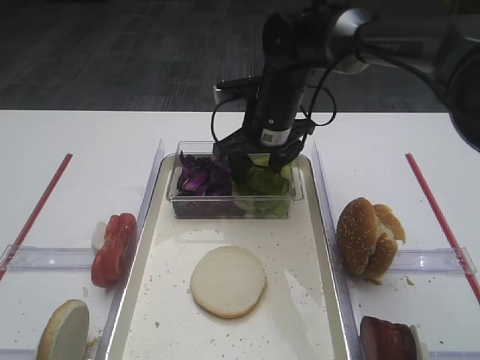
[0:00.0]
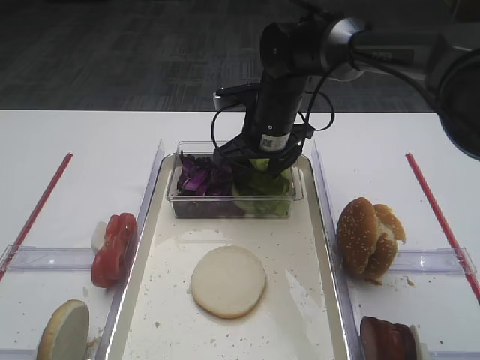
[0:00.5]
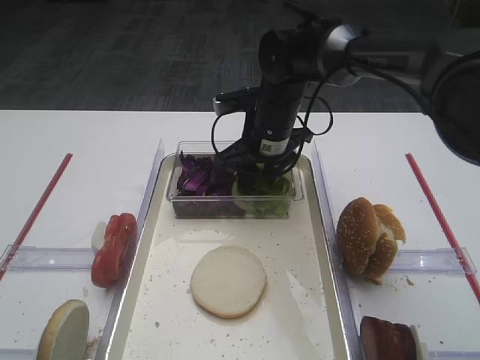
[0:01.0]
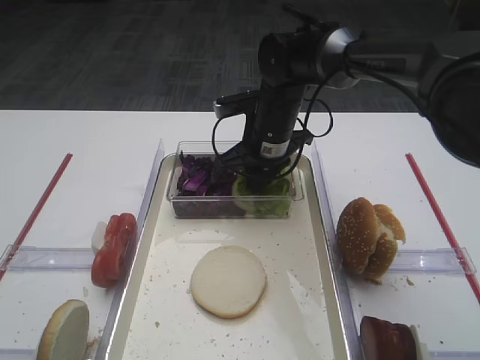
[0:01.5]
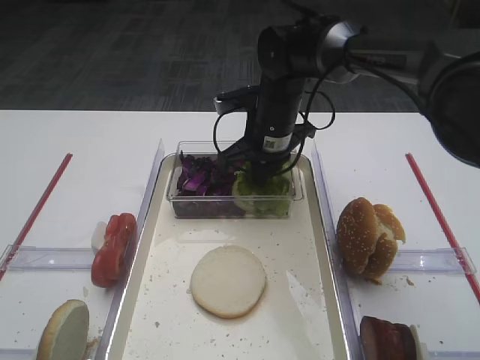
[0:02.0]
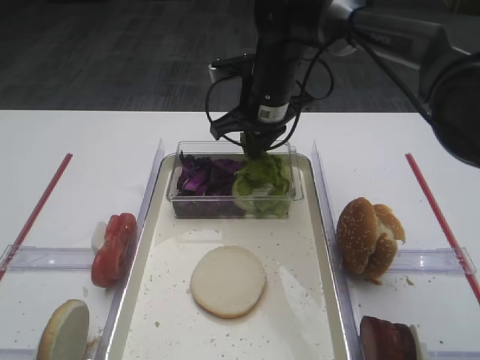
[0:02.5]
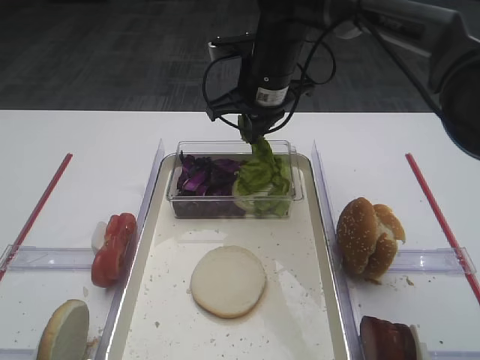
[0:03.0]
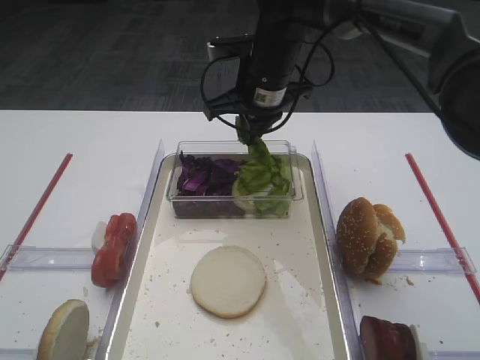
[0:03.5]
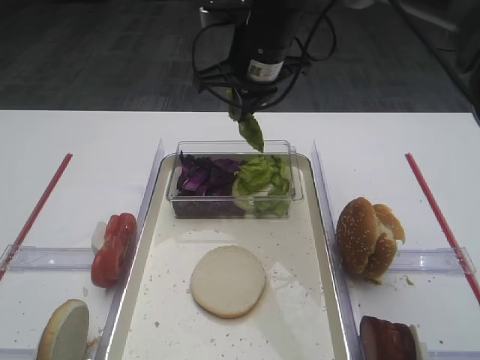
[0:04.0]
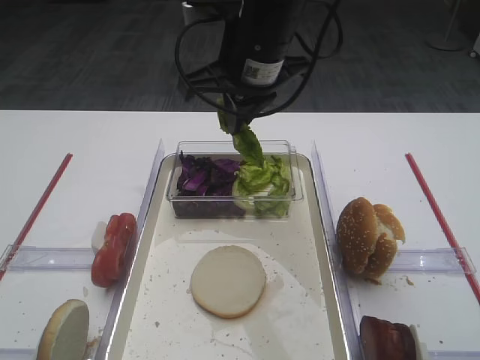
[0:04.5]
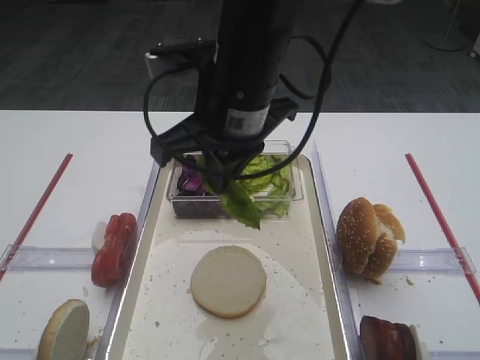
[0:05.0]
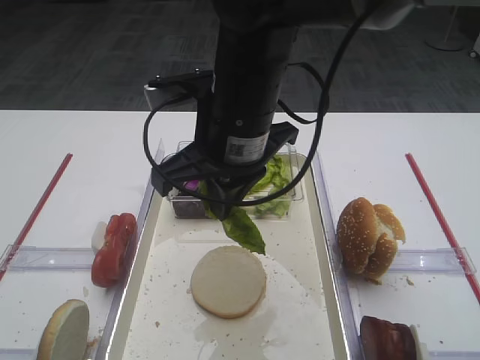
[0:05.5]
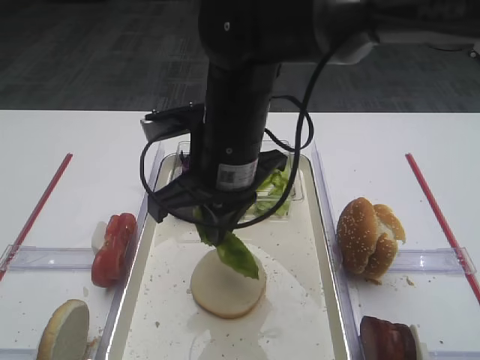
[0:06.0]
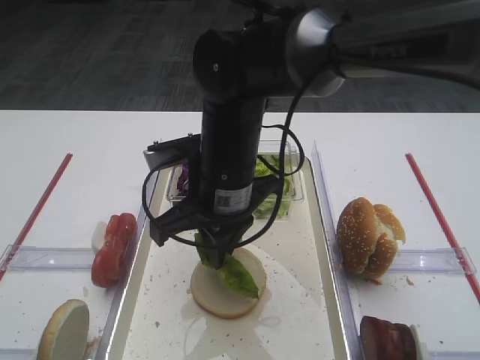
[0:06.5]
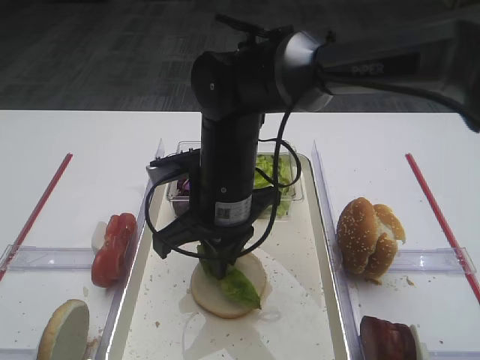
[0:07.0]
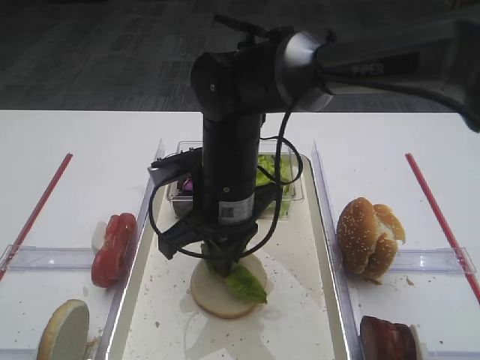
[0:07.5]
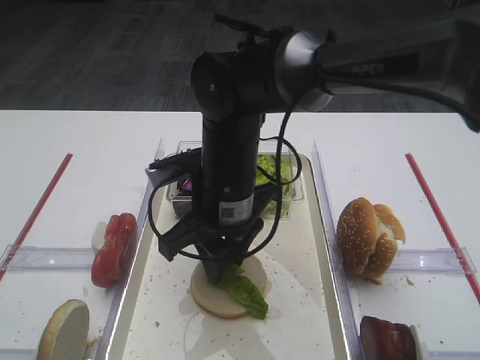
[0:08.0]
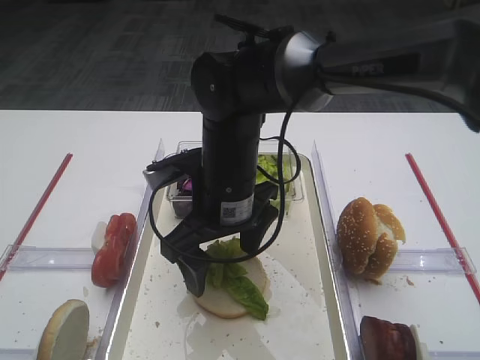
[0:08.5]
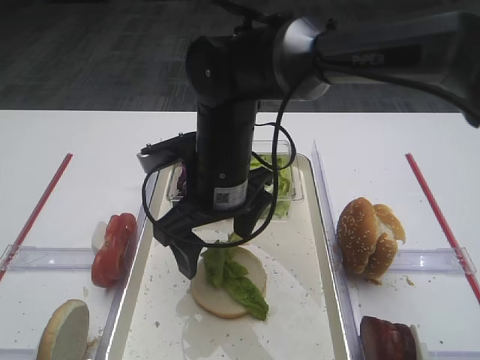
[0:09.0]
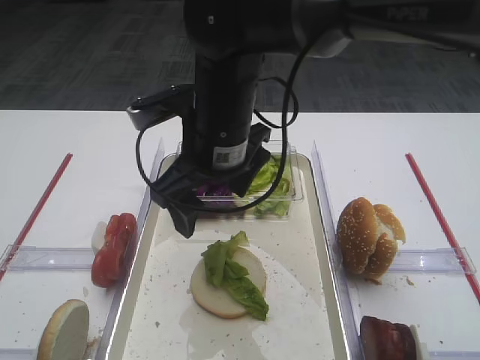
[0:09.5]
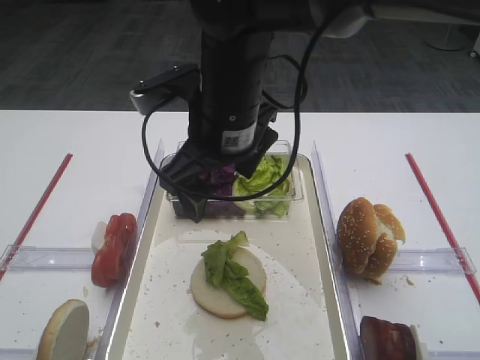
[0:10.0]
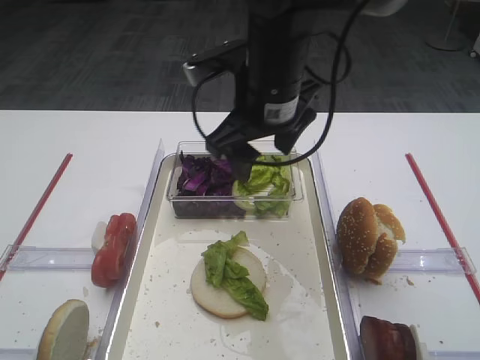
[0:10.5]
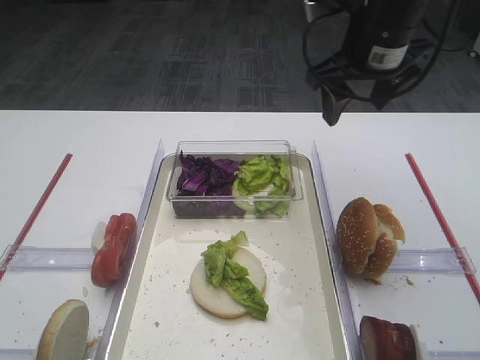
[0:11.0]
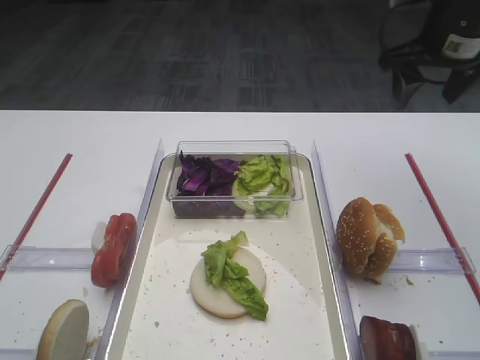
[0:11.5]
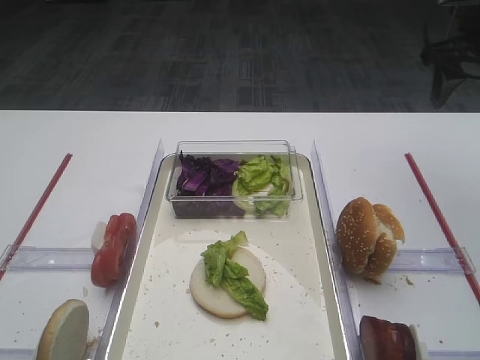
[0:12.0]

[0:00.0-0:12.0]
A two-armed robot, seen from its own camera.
Step, 0:00.0 to 0:03.5: Pick up the lettuce leaf with the right gripper.
Step, 0:04.0 to 0:09.0: Place the lettuce leaf on the bread slice with the right gripper.
0:00.0 to 0:02.0: The right gripper closes.
0:02.0 to 0:04.0: The right gripper travels upward by some 10 cm.
0:04.0 to 0:06.0: The right gripper is displaced backward by some 15 cm.
0:06.0 to 0:08.0: The right gripper travels downward by about 5 cm, and opens up.
0:08.0 to 0:10.0: The right gripper heads upward, covering about 10 cm, and opens up.
0:10.0 to 0:12.0: The right gripper moves to the right, some 30 cm.

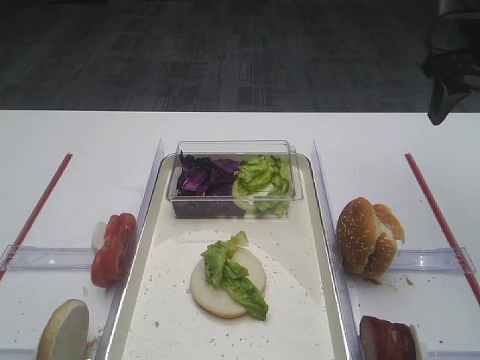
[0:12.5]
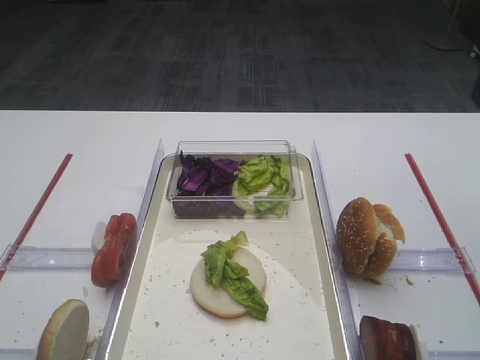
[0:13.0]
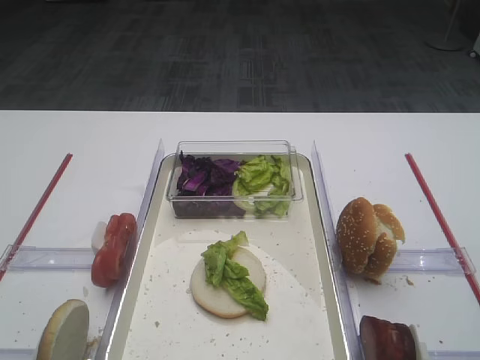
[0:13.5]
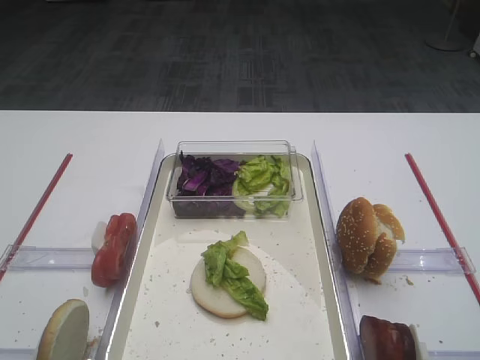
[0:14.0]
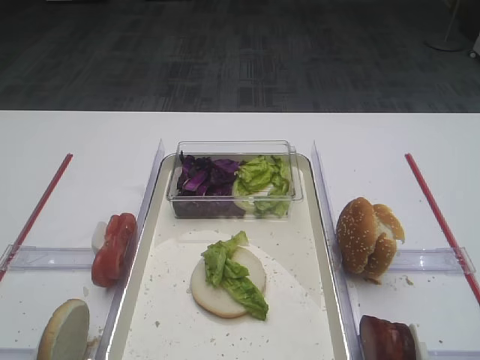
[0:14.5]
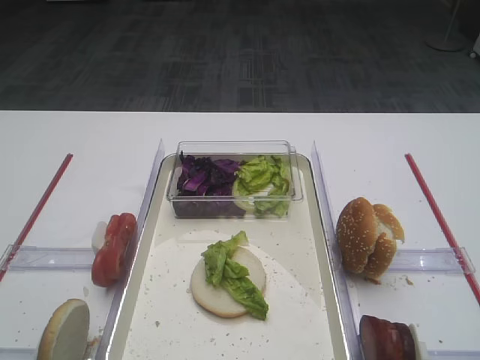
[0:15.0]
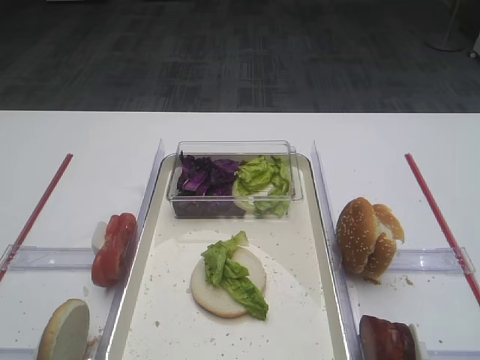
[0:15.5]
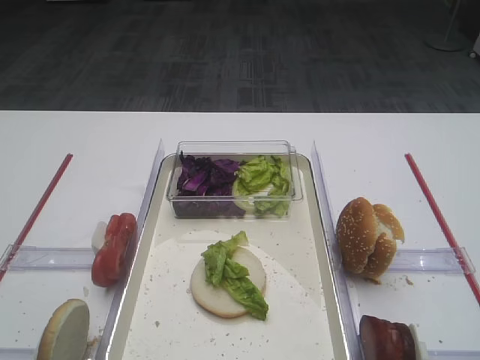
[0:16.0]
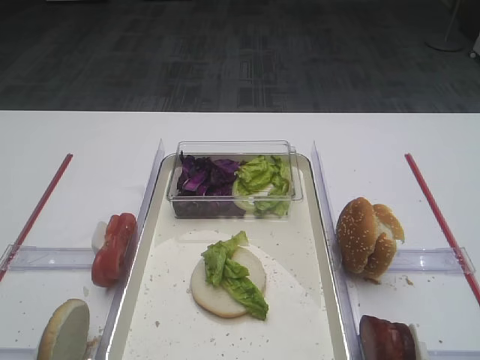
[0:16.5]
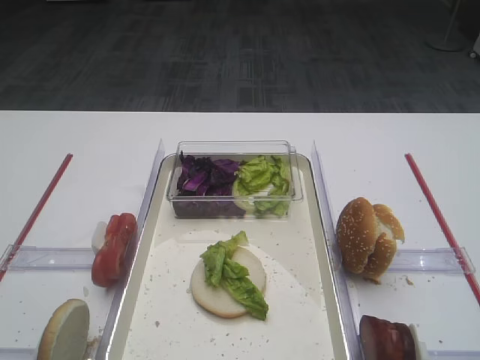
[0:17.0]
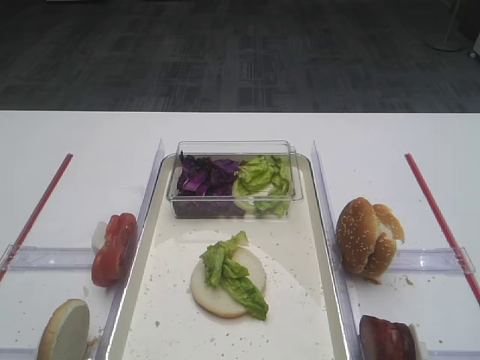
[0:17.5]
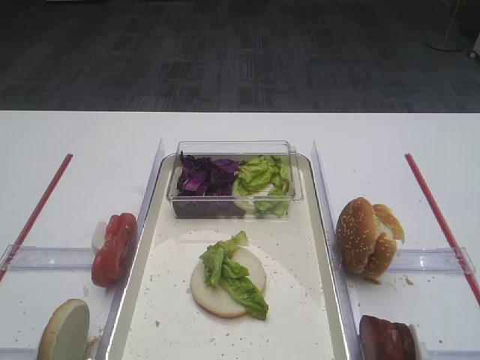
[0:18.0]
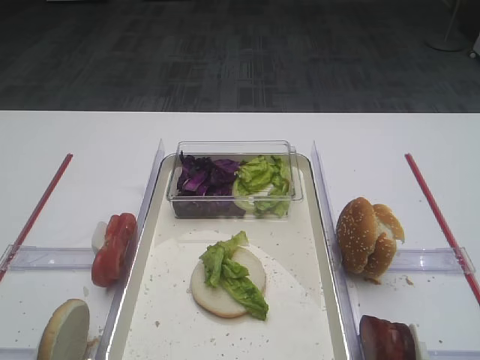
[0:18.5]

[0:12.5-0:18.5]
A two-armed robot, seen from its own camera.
0:12.5 to 0:14.5: The right gripper heads backward, covering approximately 35 cm.
0:16.5 to 0:18.5: Both grippers stay put.

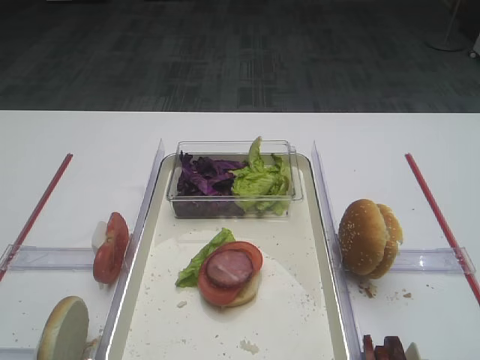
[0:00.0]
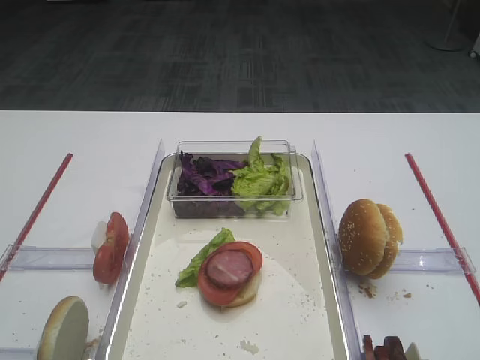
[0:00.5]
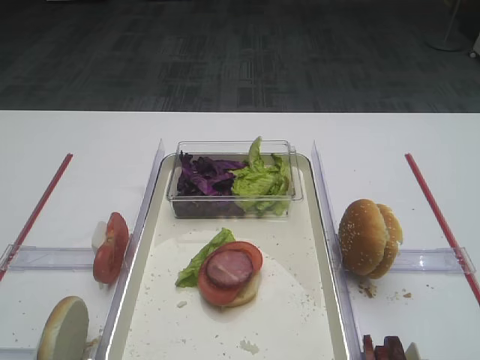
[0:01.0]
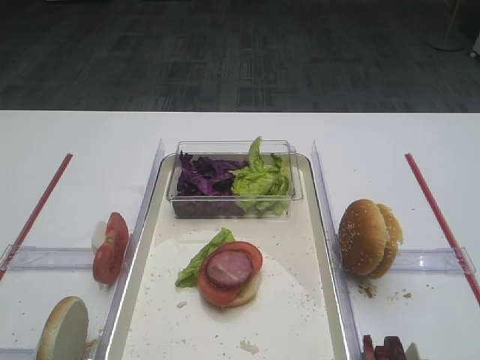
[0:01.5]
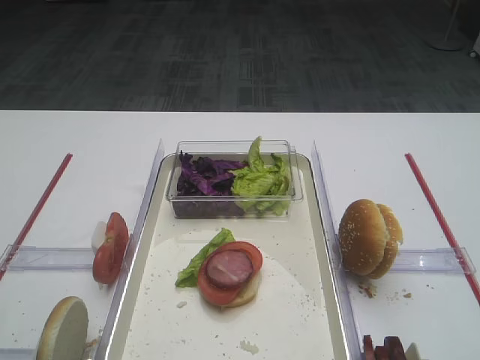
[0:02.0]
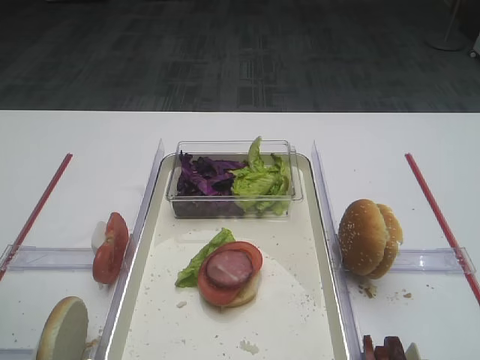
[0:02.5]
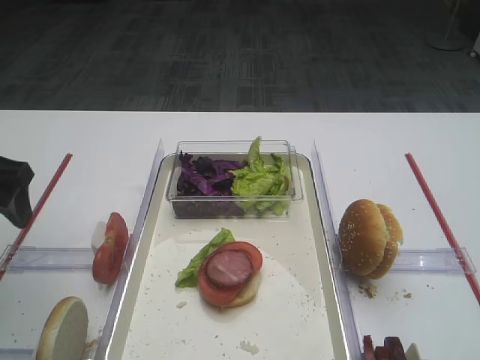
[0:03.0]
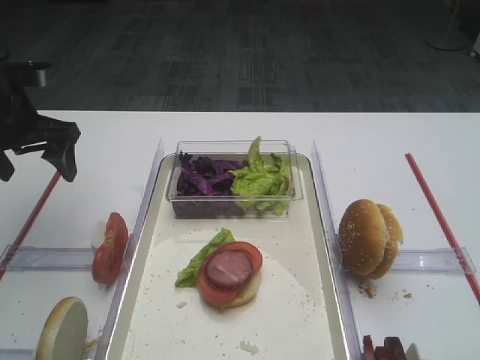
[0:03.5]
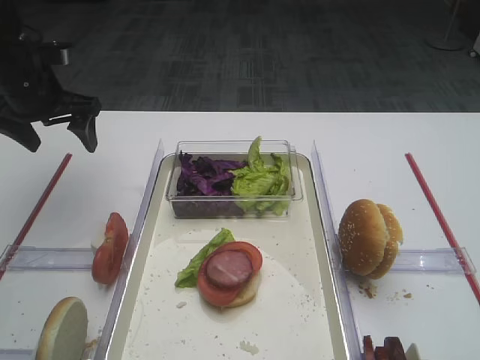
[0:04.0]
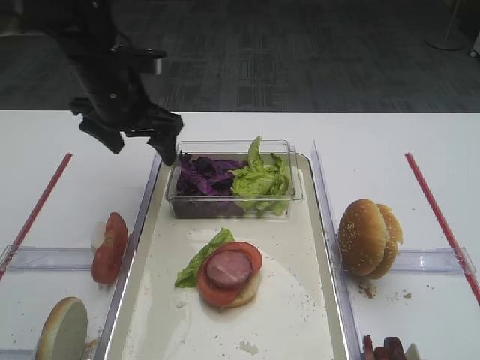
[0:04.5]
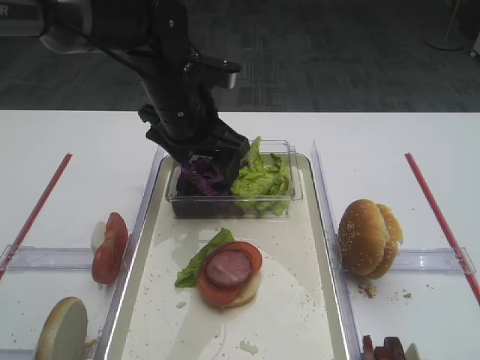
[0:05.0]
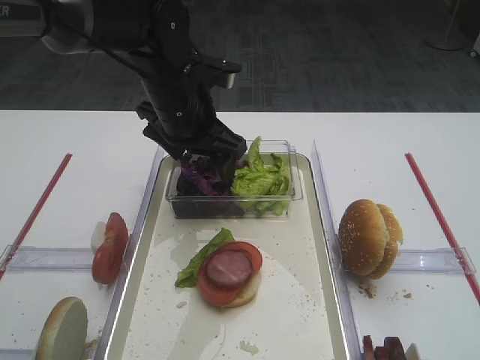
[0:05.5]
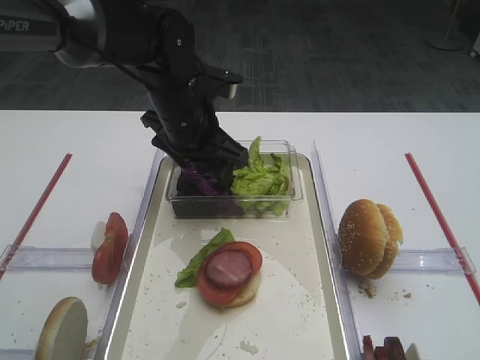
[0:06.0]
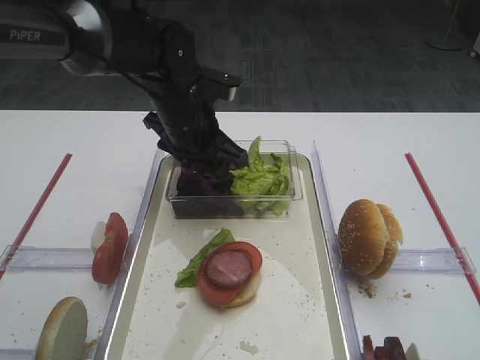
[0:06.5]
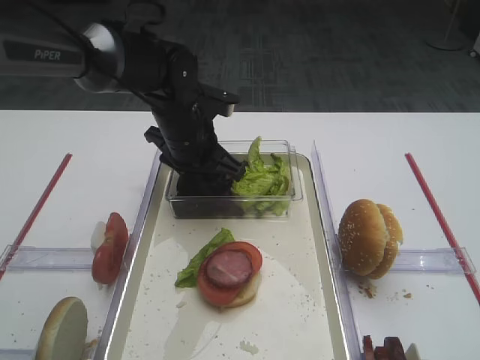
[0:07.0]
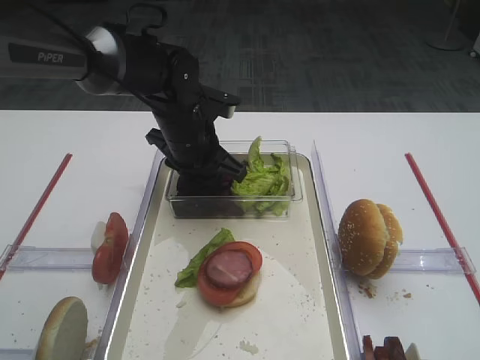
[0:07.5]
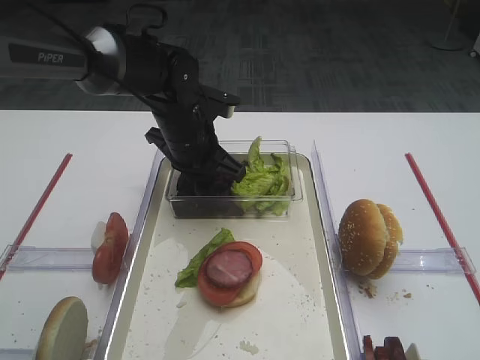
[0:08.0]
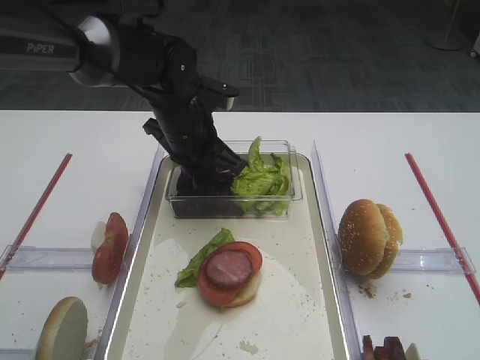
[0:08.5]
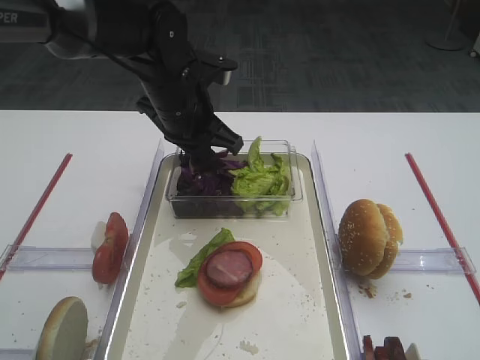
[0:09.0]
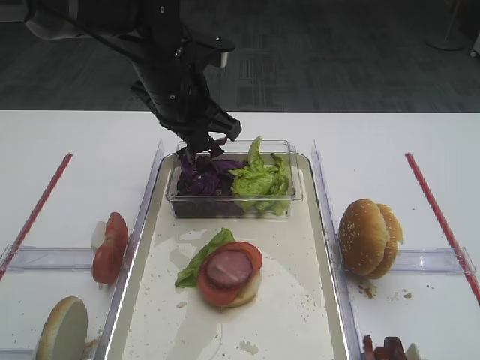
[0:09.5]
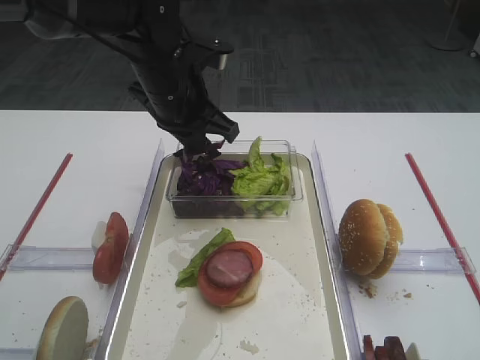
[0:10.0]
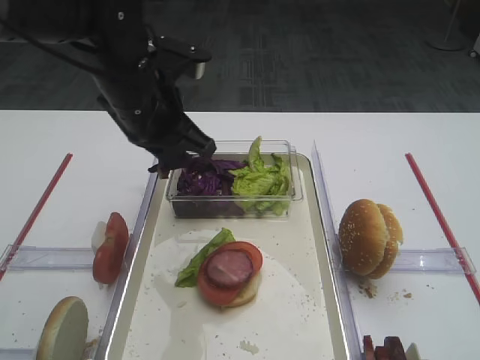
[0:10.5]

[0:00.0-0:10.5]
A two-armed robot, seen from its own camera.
0:02.0 to 0:04.0: The left gripper shifts about 30 cm forward.
0:04.0 to 0:06.5: The left gripper moves to the right, approximately 20 cm.
0:06.5 to 0:08.5: The left gripper closes its fingers.
0:08.5 to 0:10.5: The left gripper shifts some 10 cm upward and backward.
